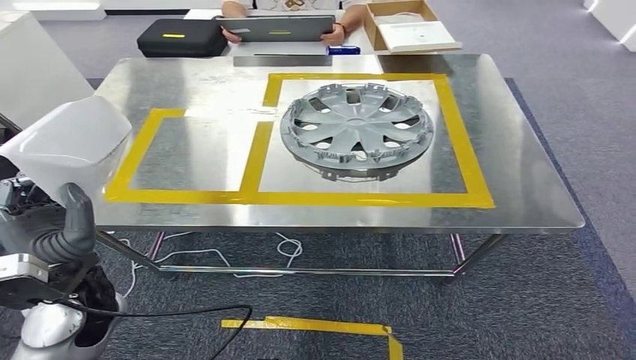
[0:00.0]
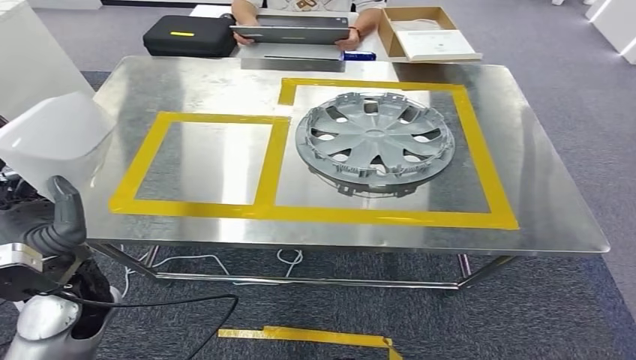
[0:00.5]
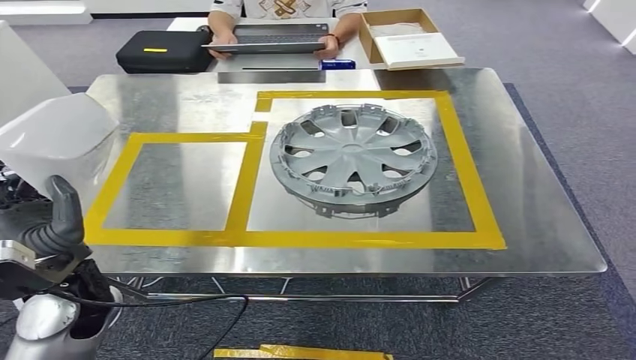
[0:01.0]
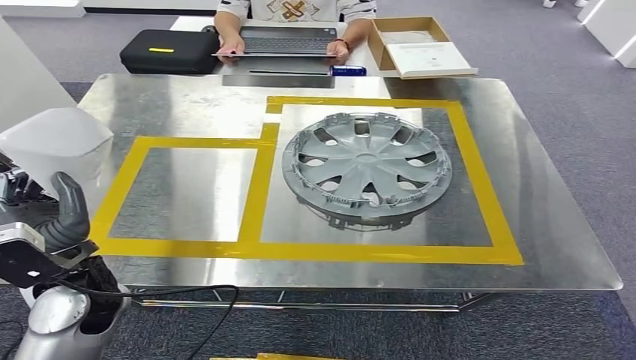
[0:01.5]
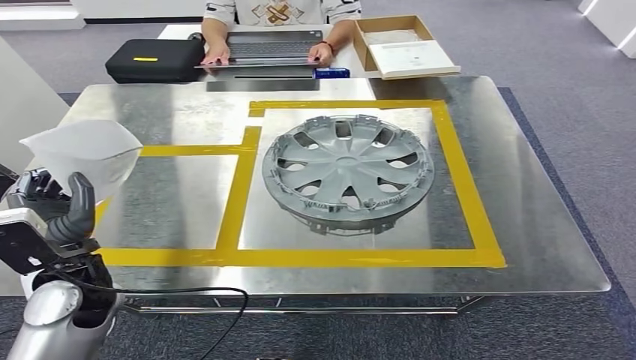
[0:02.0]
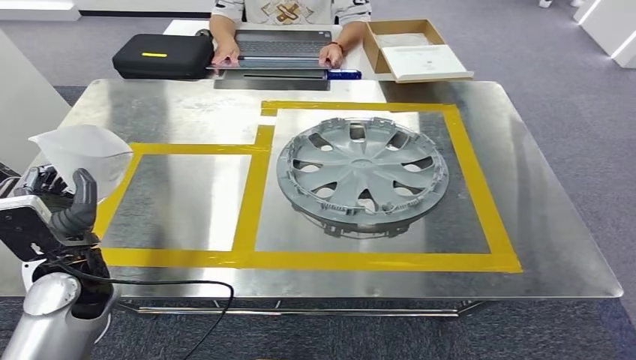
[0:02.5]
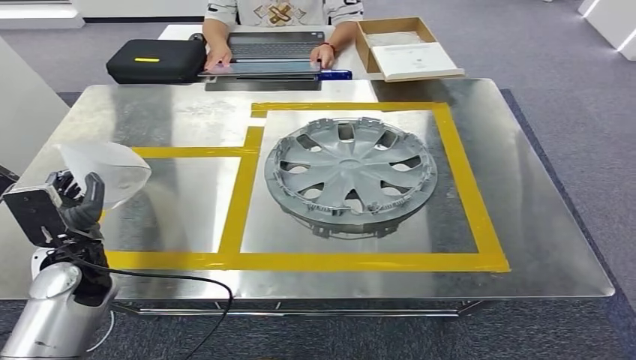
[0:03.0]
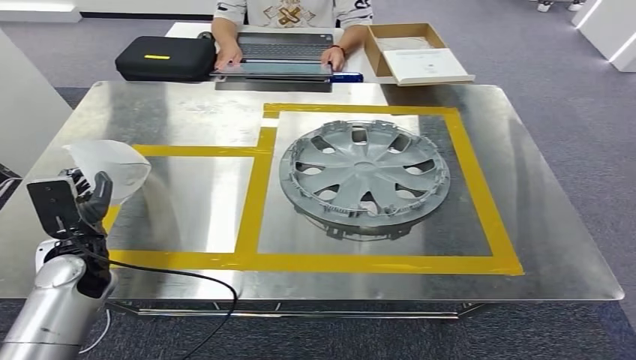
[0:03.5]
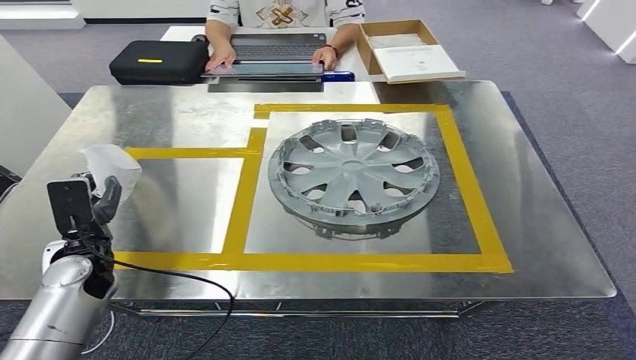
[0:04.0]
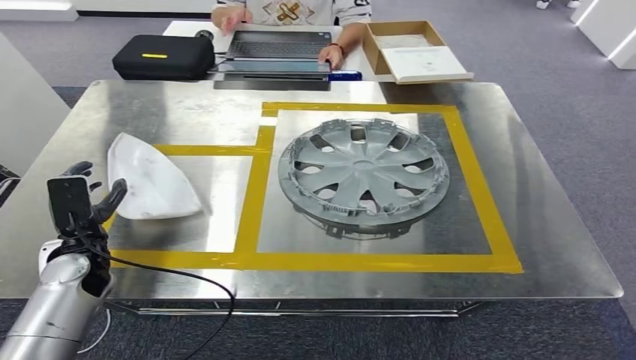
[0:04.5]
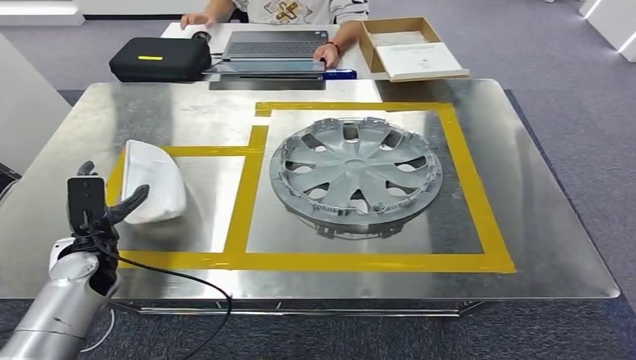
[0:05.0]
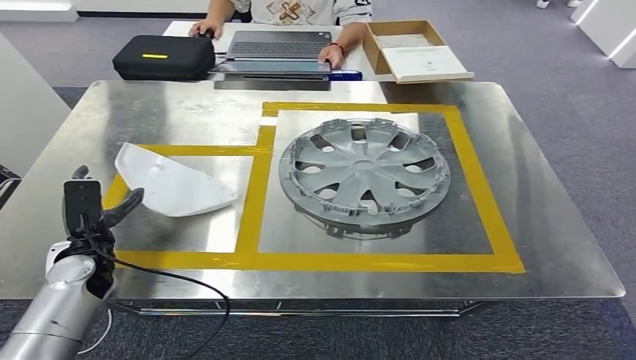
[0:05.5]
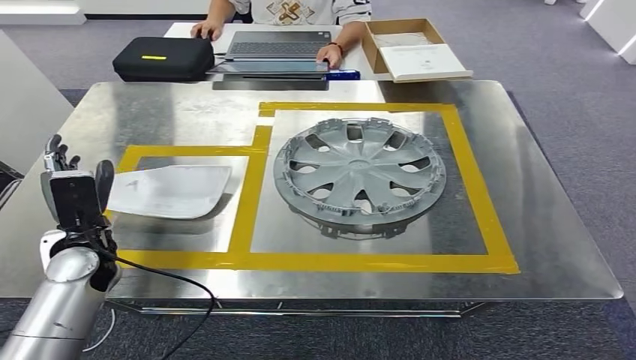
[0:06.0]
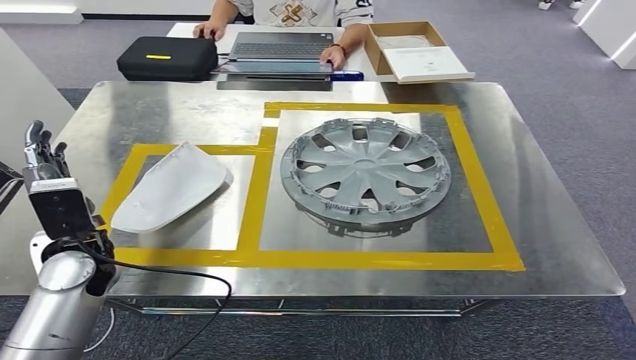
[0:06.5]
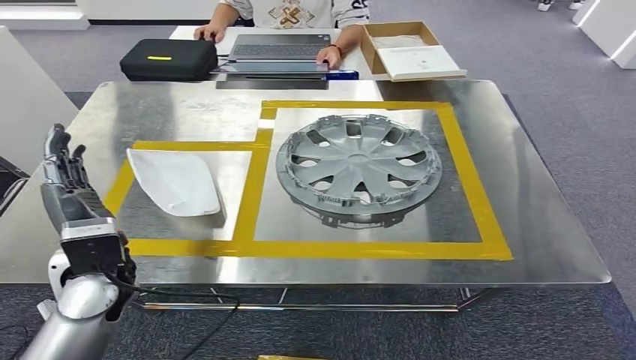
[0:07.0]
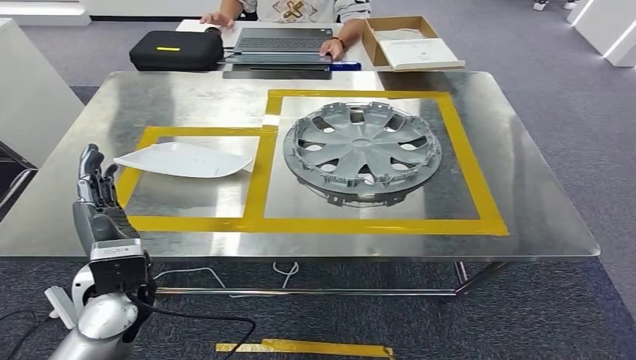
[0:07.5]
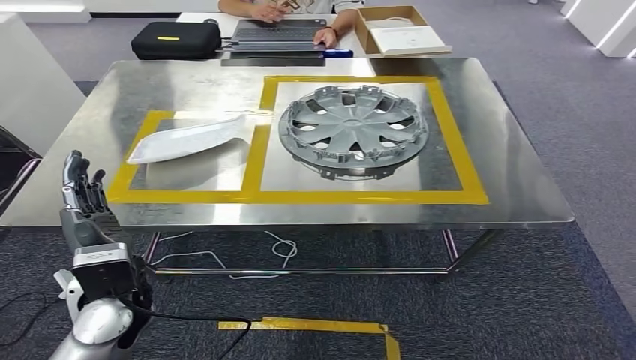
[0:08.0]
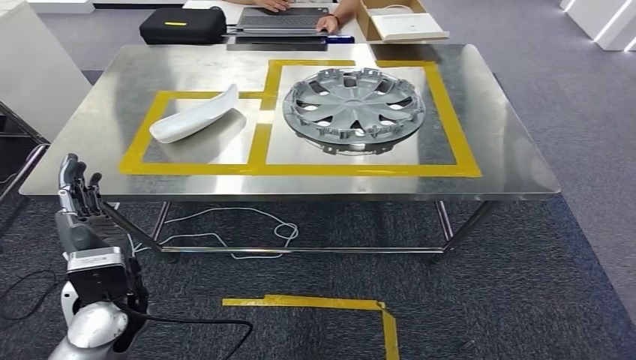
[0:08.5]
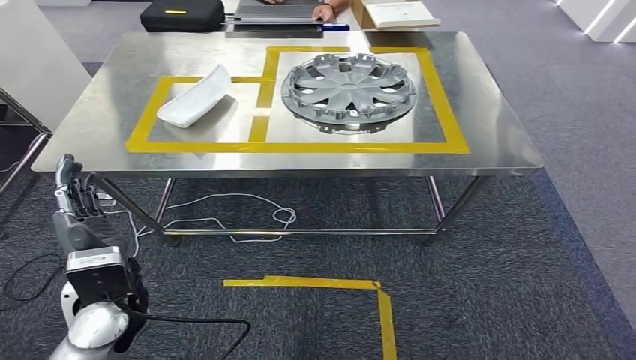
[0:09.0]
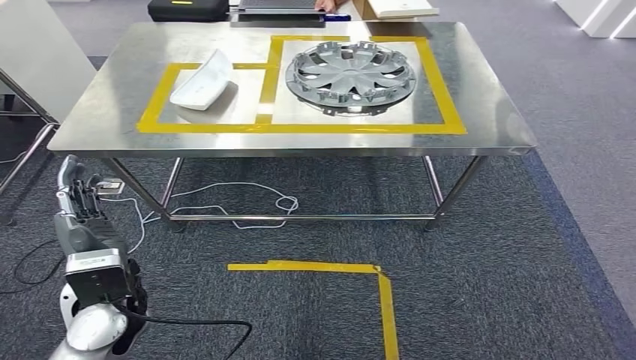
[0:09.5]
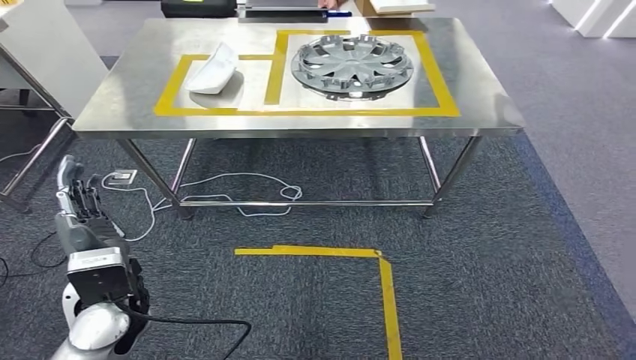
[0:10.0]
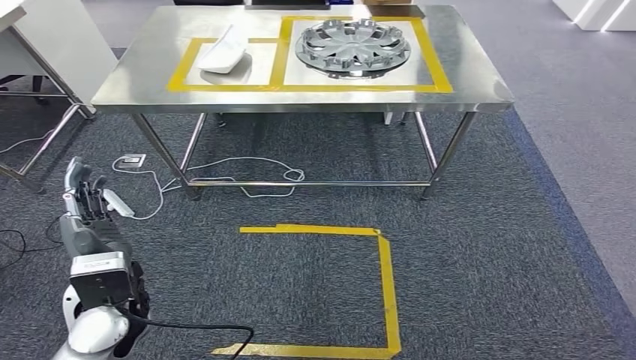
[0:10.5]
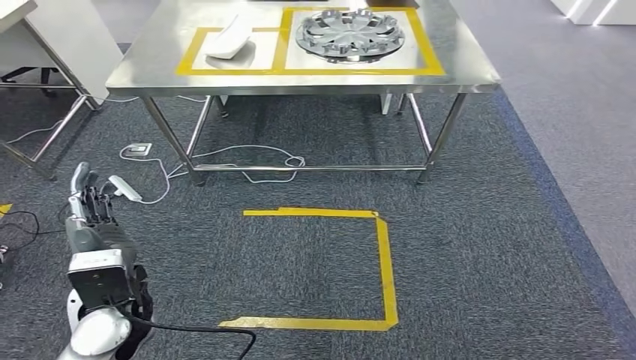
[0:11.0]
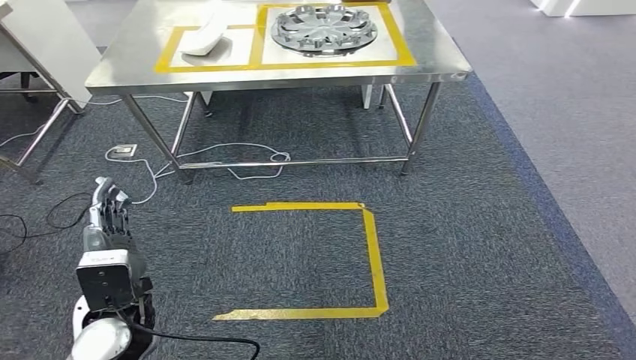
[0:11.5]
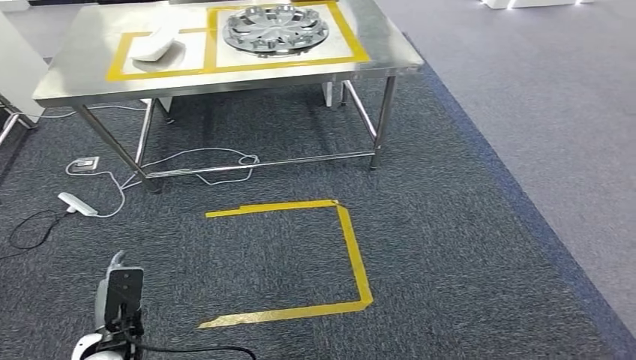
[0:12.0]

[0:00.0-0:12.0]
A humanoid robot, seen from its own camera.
Step, 0:00.0 to 0:07.0: Insert the small component into the corresponding slot on the workbench.

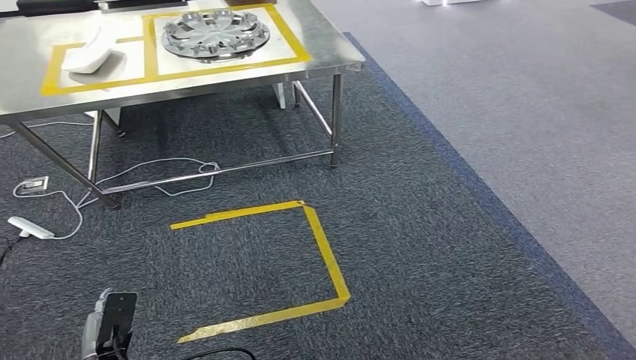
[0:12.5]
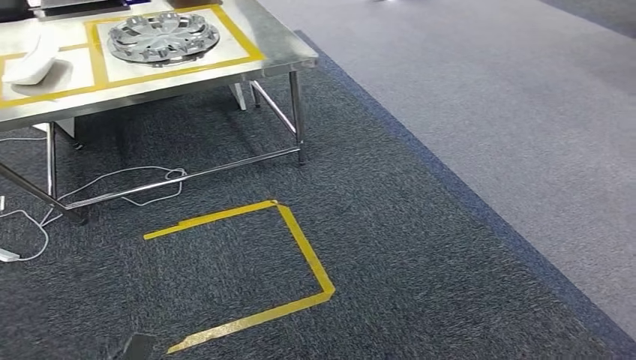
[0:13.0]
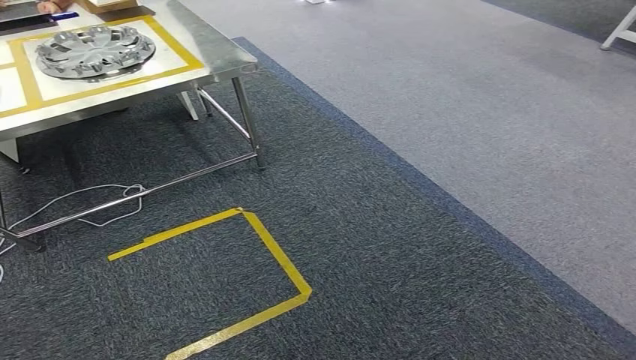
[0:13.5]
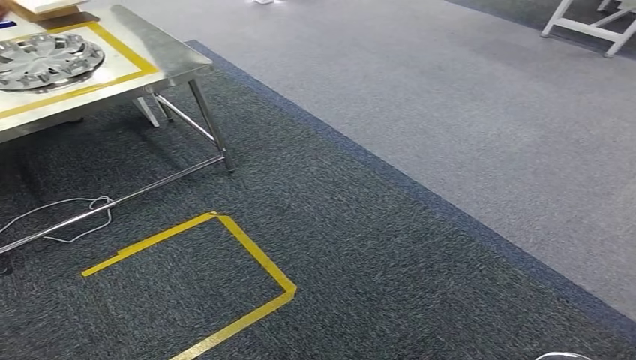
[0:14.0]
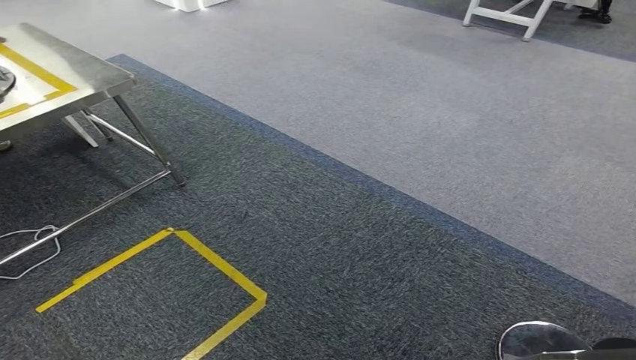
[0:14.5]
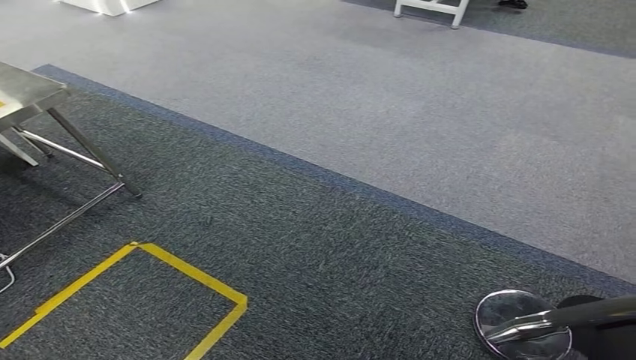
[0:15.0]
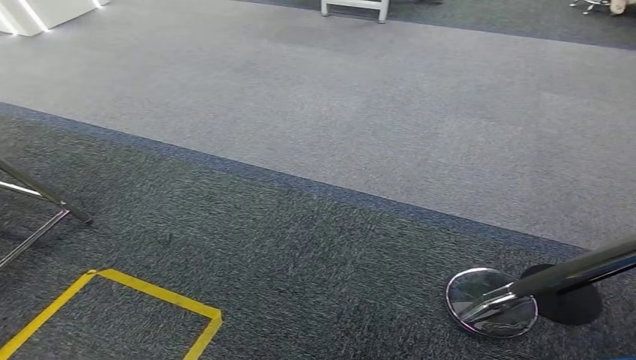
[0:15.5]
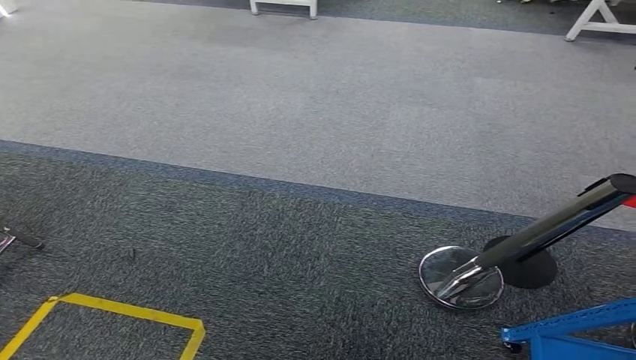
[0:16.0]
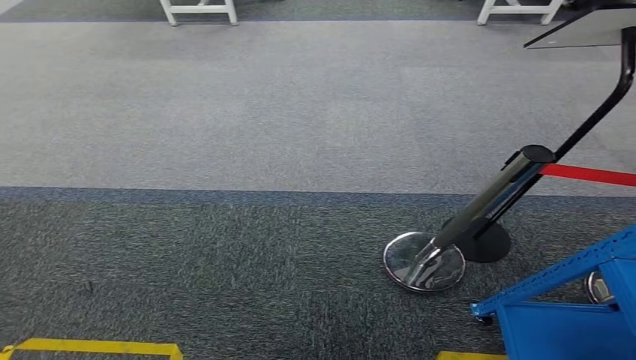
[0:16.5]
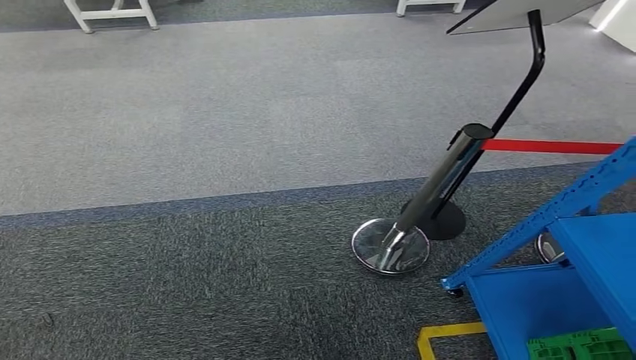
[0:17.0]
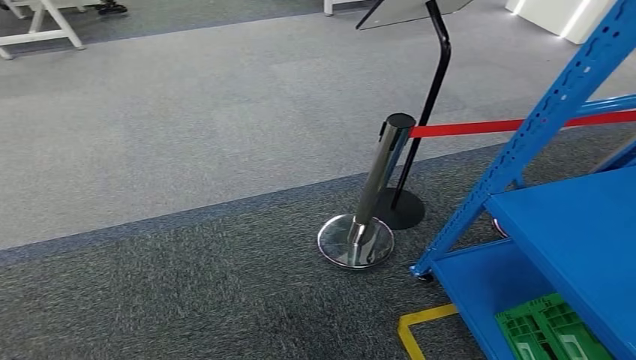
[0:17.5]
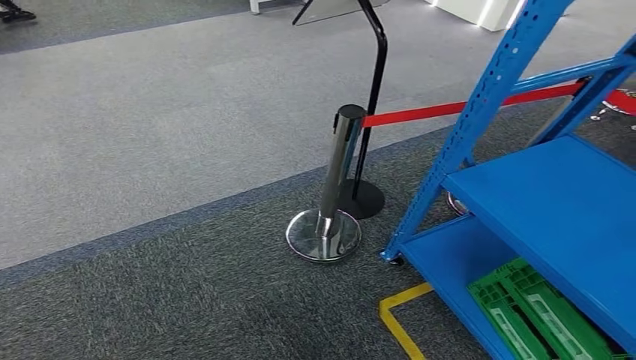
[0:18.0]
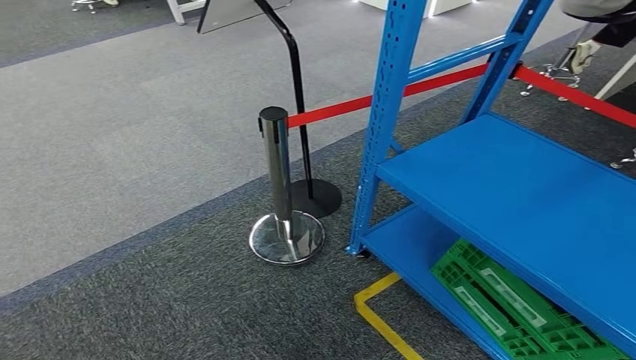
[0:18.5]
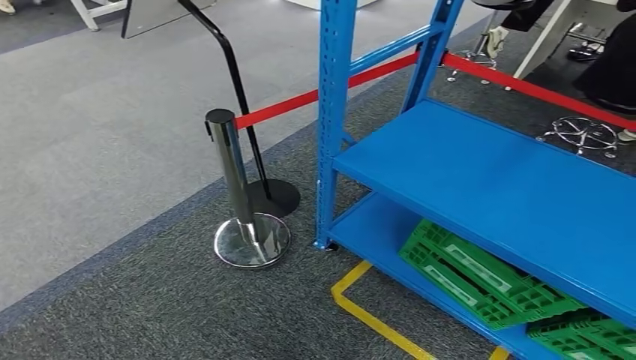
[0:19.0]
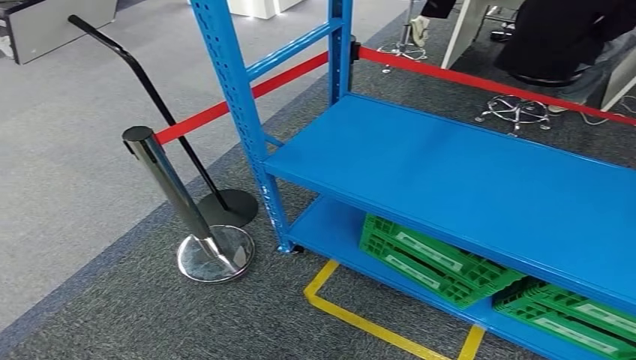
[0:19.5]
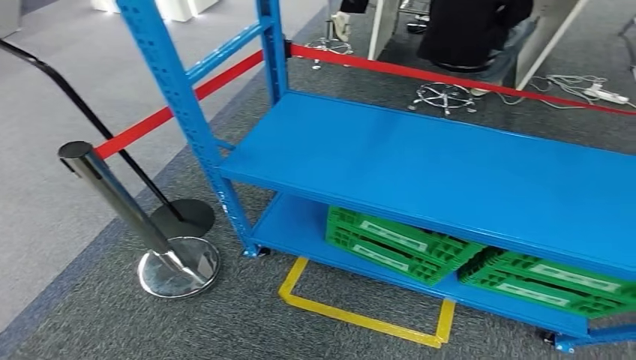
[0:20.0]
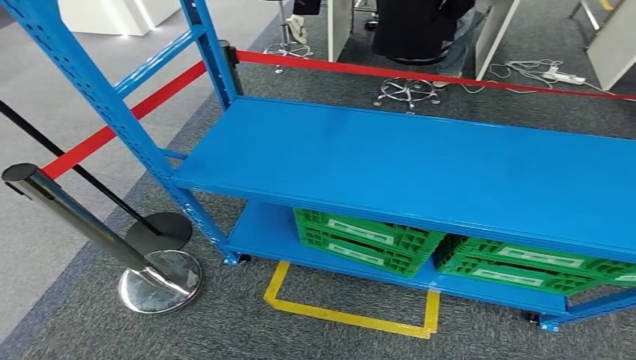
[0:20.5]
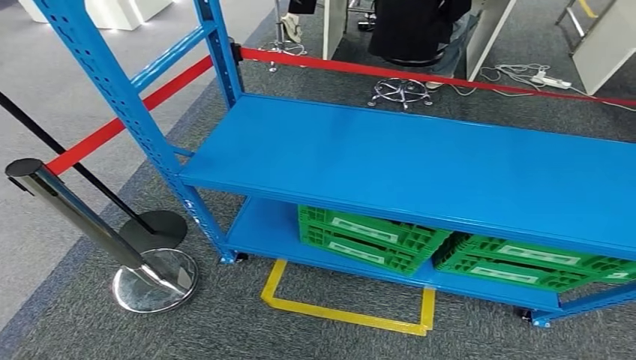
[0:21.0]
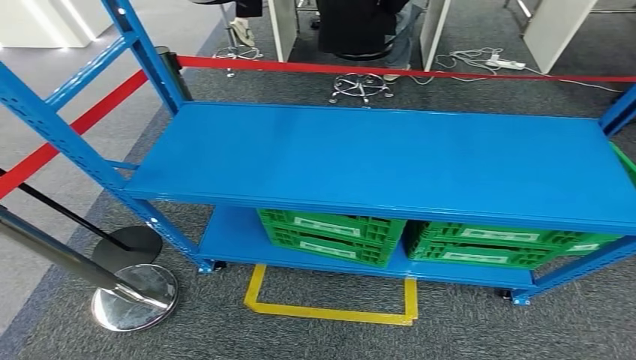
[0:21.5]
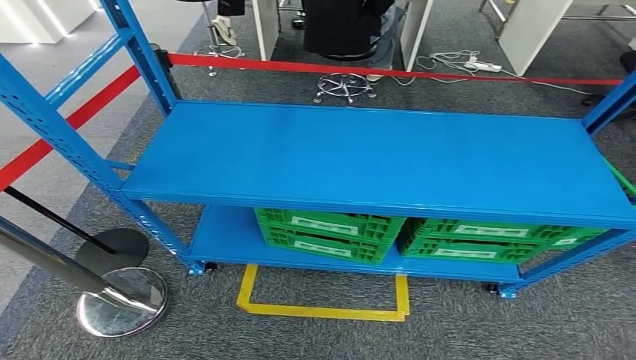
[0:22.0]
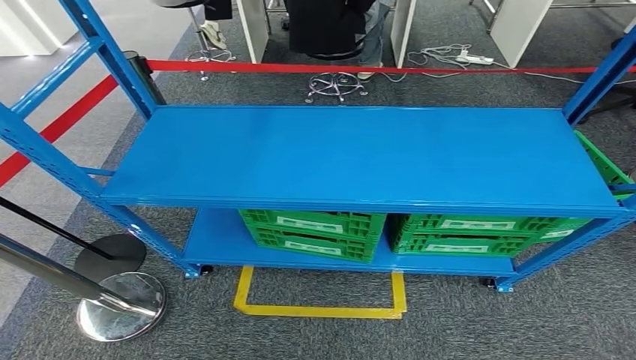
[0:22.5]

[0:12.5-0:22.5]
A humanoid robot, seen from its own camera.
Step, 0:12.5 to 0:22.5: Return to the initial position at the workbench.
